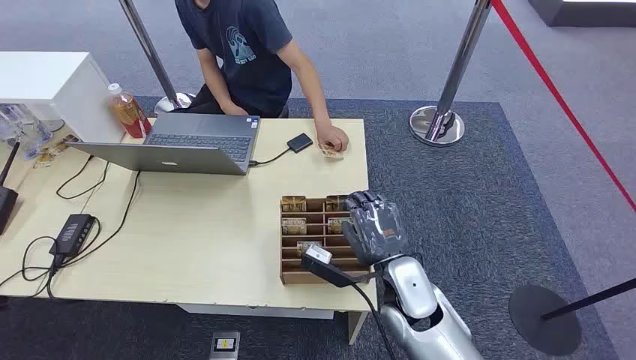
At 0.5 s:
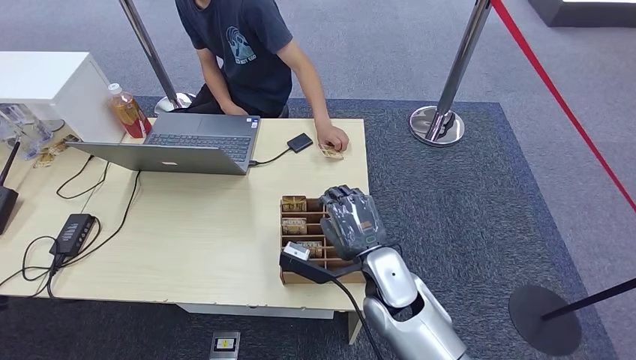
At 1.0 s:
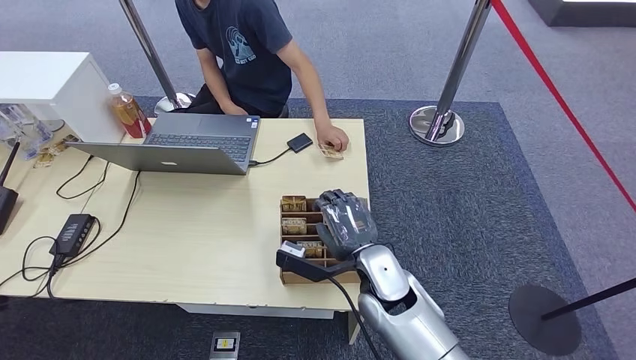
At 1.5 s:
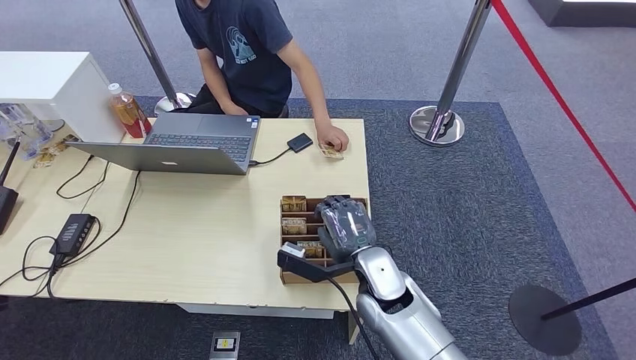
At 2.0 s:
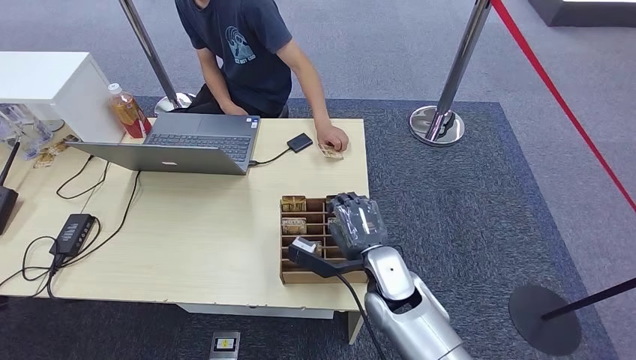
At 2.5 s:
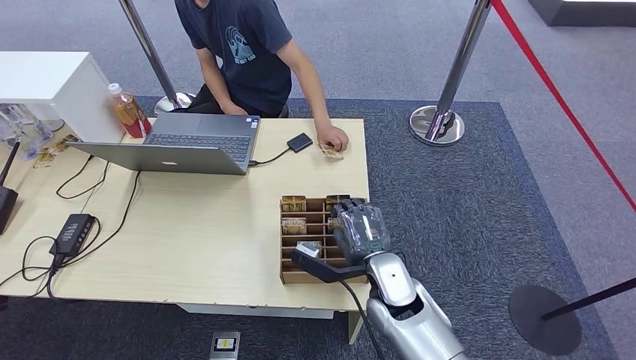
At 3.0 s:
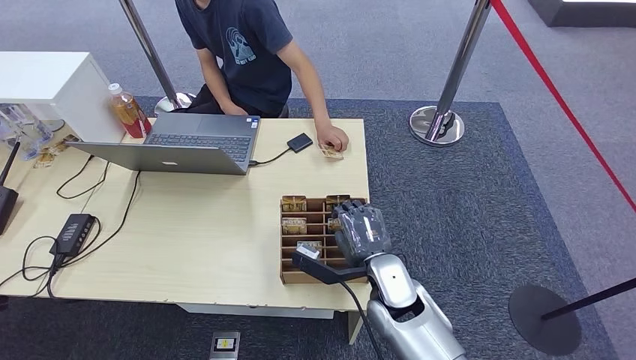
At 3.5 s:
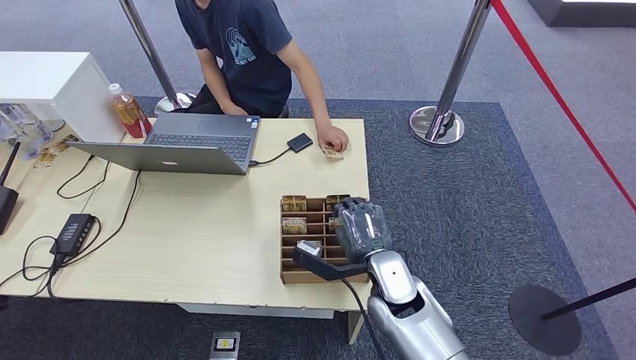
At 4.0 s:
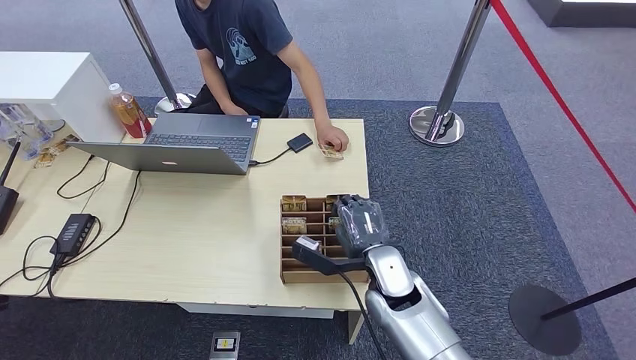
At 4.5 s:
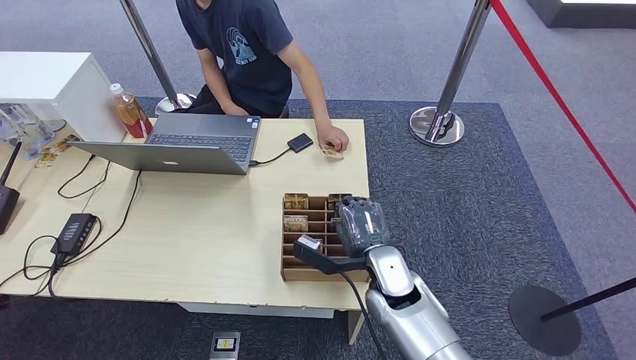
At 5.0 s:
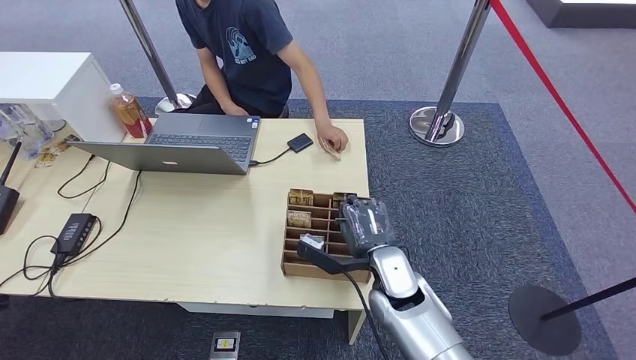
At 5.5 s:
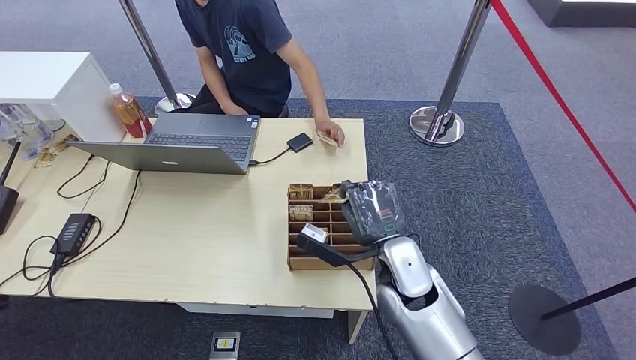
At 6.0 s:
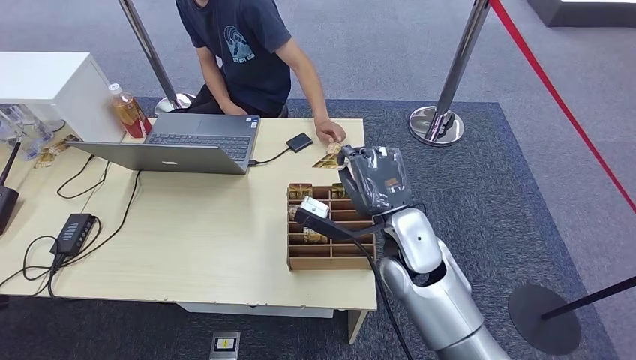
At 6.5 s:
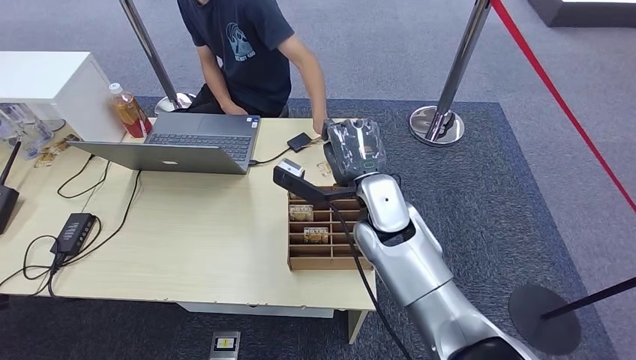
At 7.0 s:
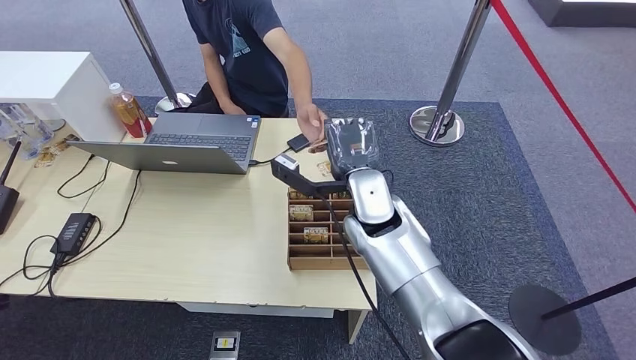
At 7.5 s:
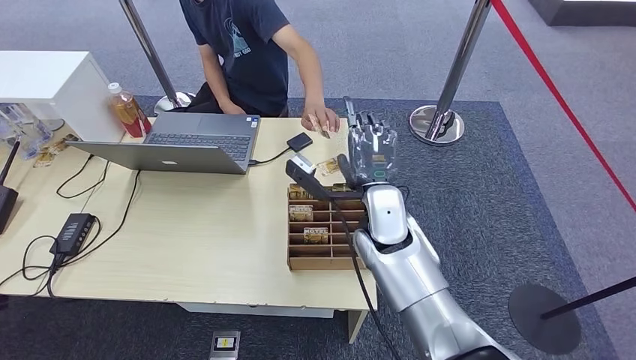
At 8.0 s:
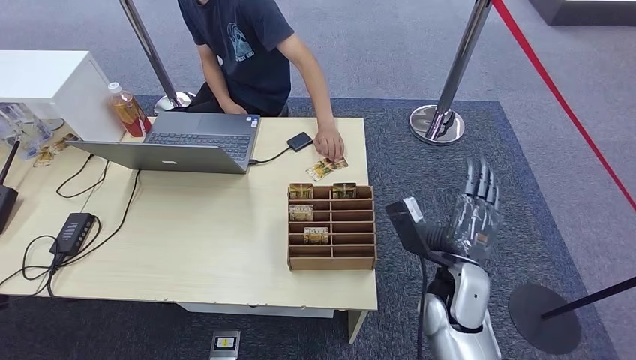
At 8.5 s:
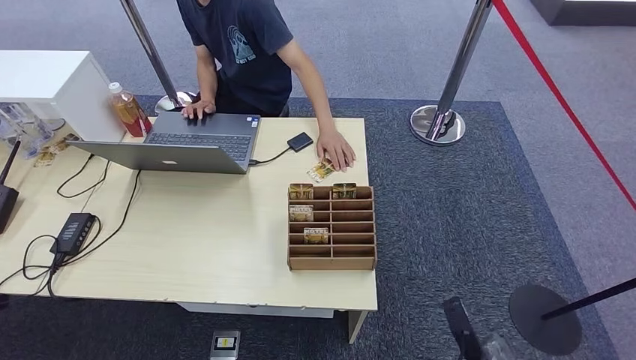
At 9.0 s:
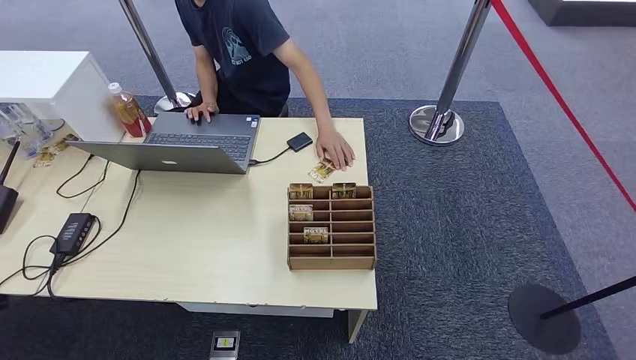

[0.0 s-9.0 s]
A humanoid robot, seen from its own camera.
Step, 0.0 to 6.0 s: Pick up the key card from the card box.
Step, 6.5 to 8.5 s: Hand the key card to the target.
2.0 to 4.5 s: The hands move only a little.
4.5 to 7.0 s: The right hand shifts approximately 15 cm upward and forward.
7.0 to 9.0 s: The right hand heads downward, backward and to the right, covering approximately 50 cm.
